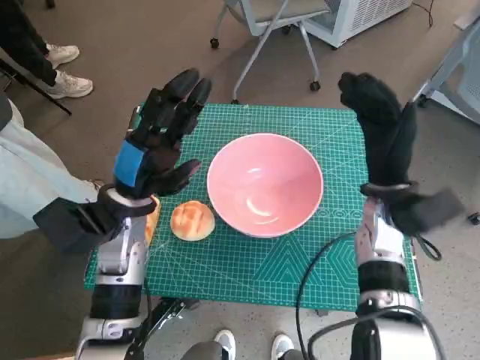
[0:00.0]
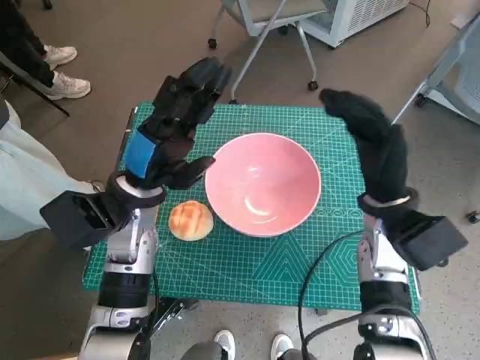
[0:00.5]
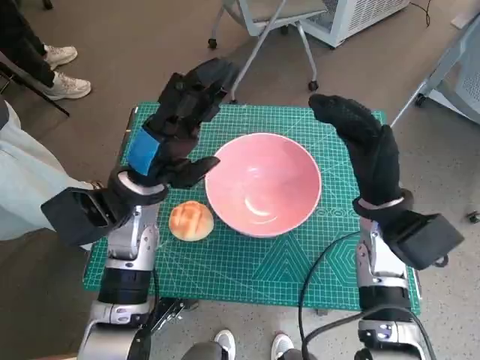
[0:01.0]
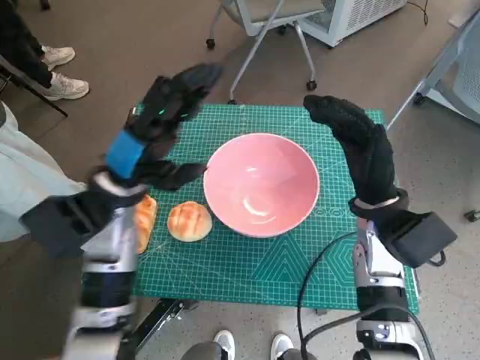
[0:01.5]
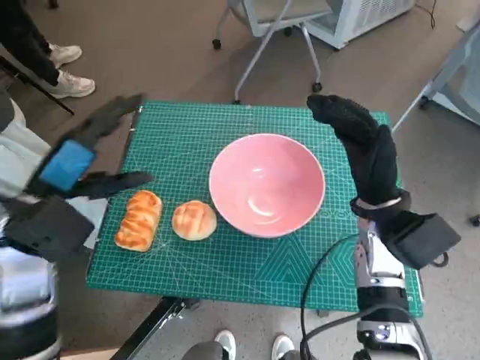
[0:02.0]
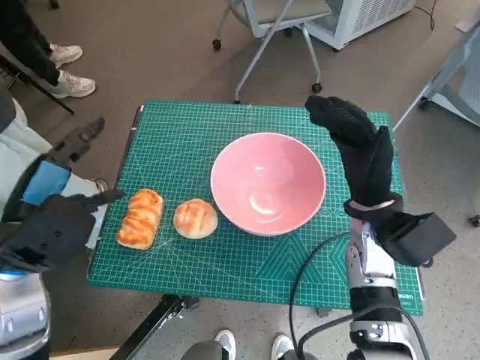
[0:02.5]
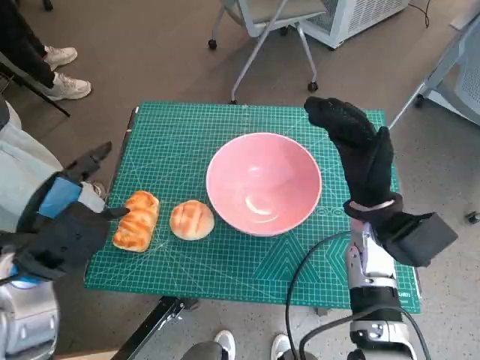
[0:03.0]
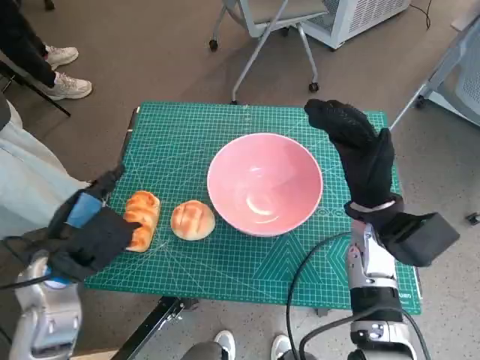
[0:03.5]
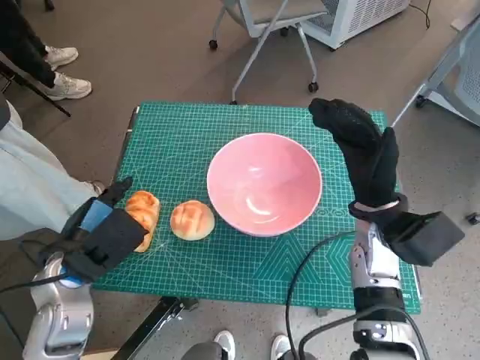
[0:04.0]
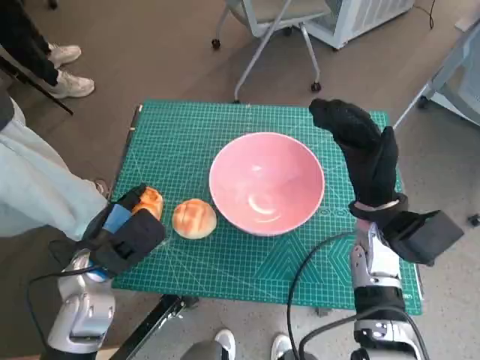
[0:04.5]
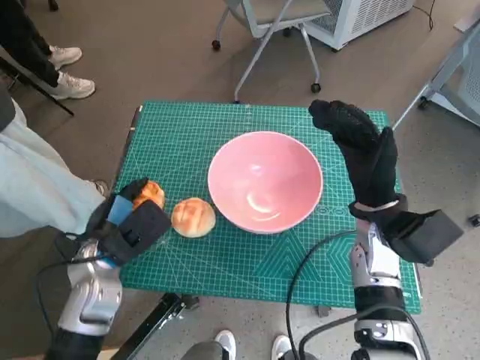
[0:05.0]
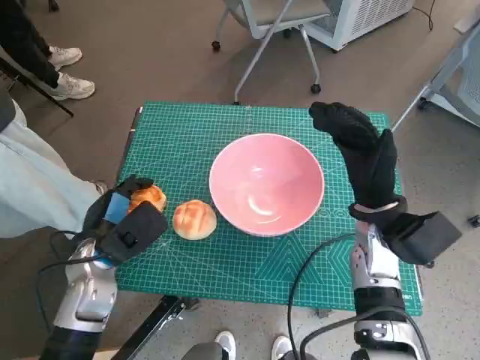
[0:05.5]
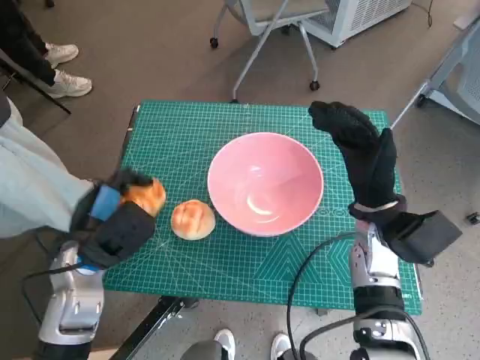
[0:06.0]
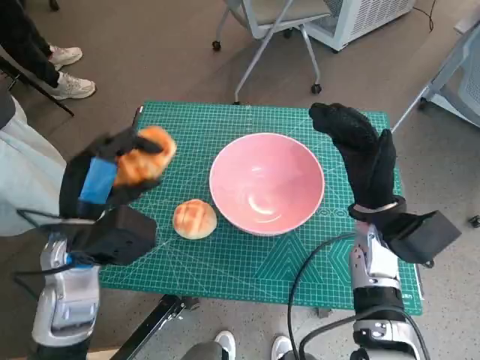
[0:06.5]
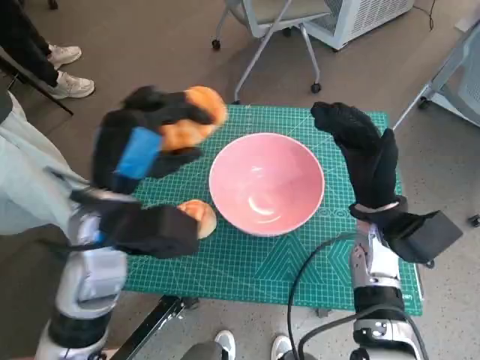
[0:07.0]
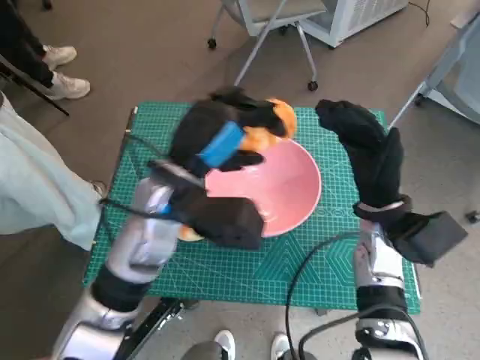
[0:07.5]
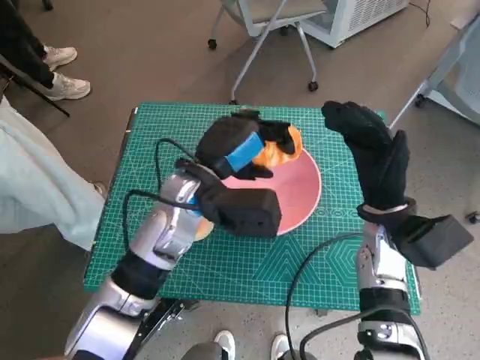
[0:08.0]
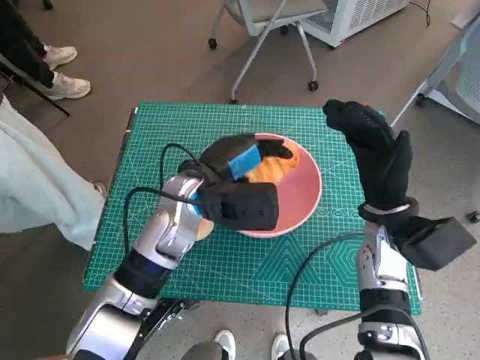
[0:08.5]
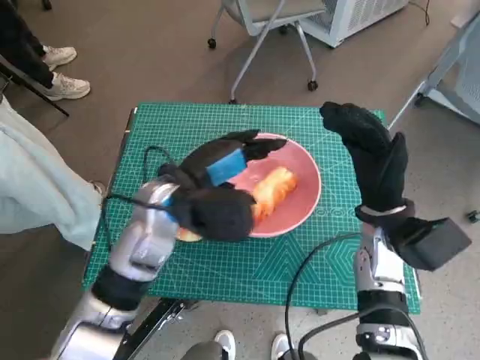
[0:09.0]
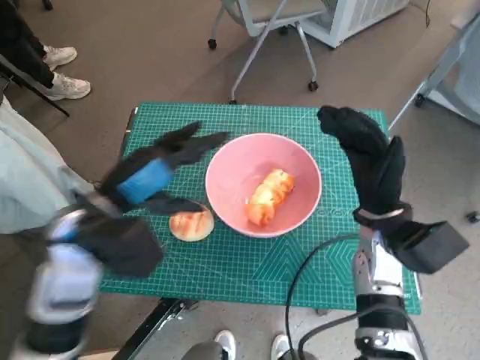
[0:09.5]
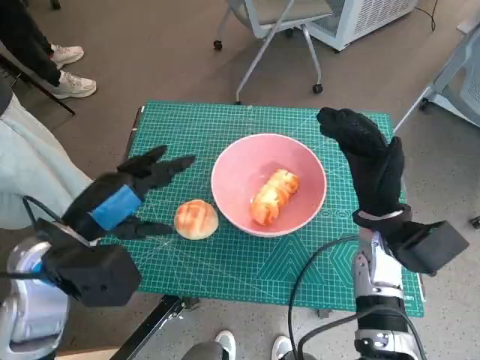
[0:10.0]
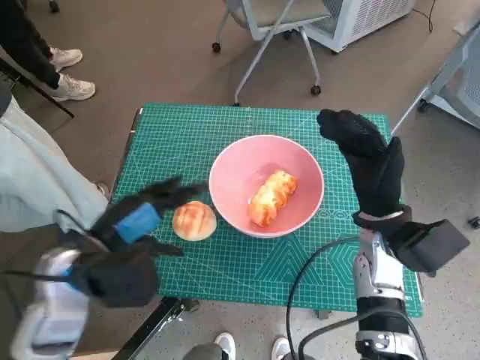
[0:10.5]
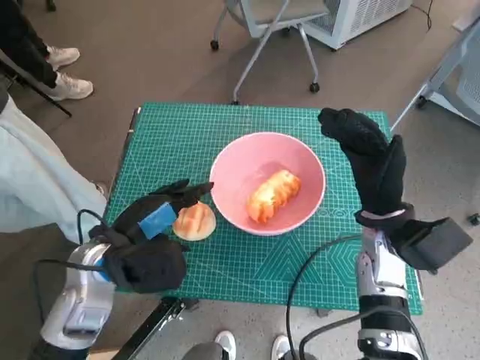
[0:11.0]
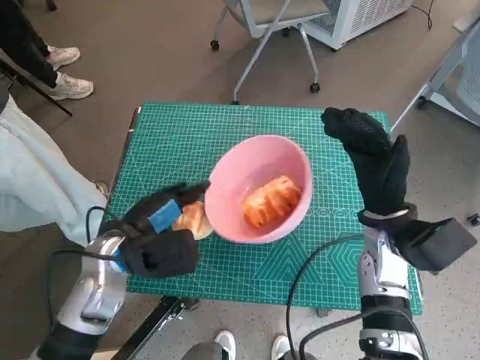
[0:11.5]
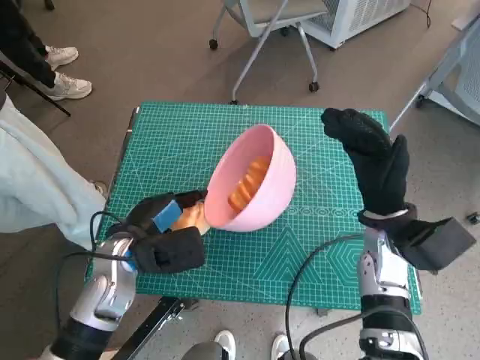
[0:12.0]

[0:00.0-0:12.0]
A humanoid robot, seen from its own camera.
Task of the whole recording: Push the bowl into the center of the table and put the bread into the bowl.
Step, 0:00.0 to 0:05.0: Grasp the long bread with left hand.
Step, 0:05.5 to 0:09.0: Place the long bread in pink bowl with left hand.
0:00.0 to 0:02.0: The left hand heads to the left and upward, covering about 10 cm.
0:02.0 to 0:04.0: The left hand moves downward, approximately 10 cm.
0:04.0 to 0:06.0: The hands make only small movements.
0:06.0 to 0:08.0: The left hand goes some 20 cm to the right, forward and upward.
0:08.0 to 0:10.0: The left hand travels to the left and backward by approximately 15 cm.
0:10.0 to 0:12.0: The left hand travels downward by some 10 cm.

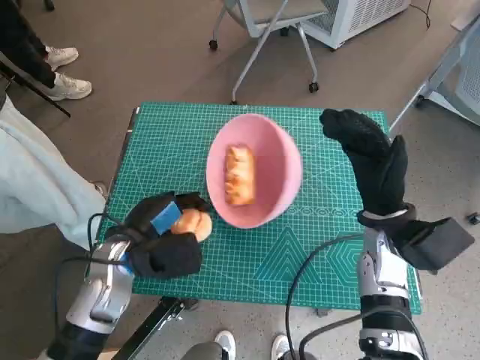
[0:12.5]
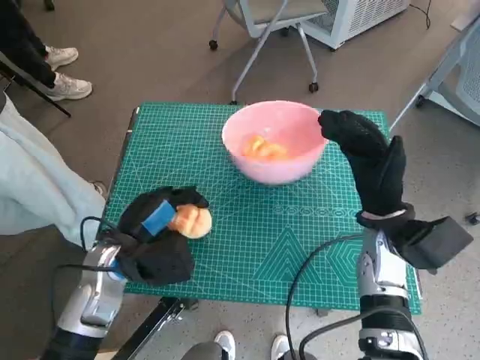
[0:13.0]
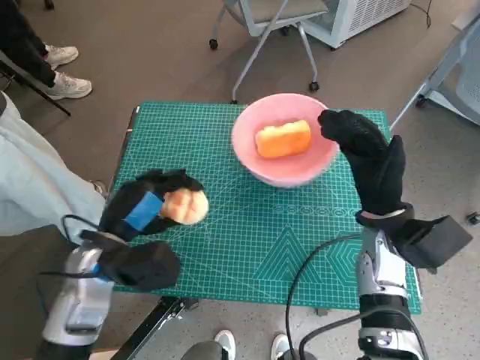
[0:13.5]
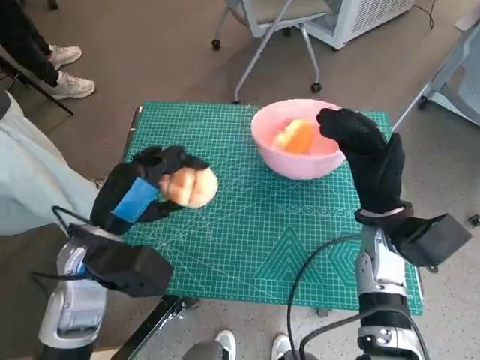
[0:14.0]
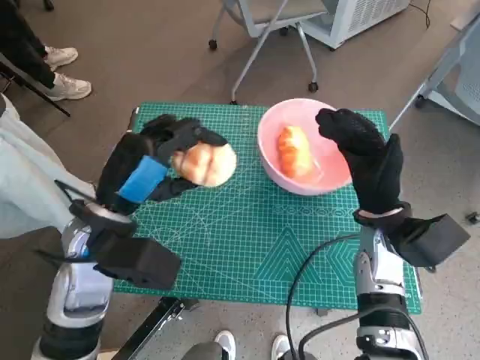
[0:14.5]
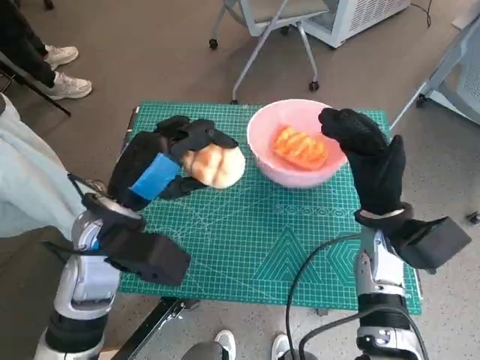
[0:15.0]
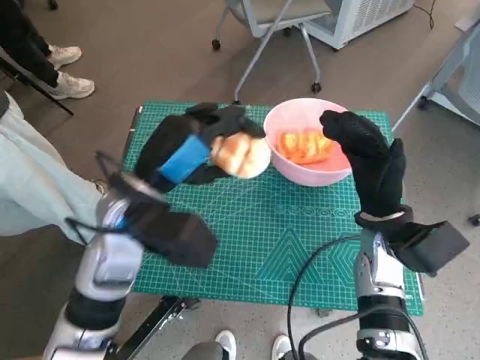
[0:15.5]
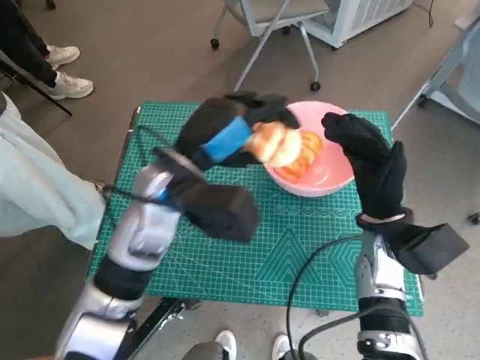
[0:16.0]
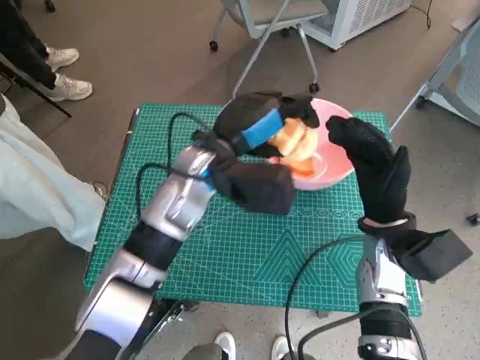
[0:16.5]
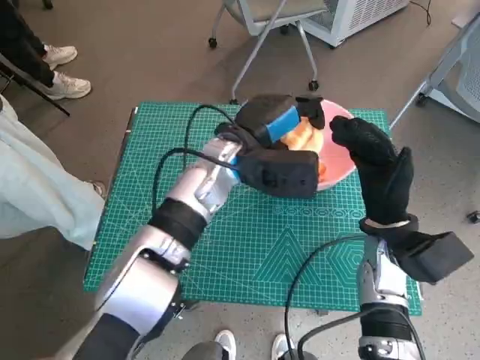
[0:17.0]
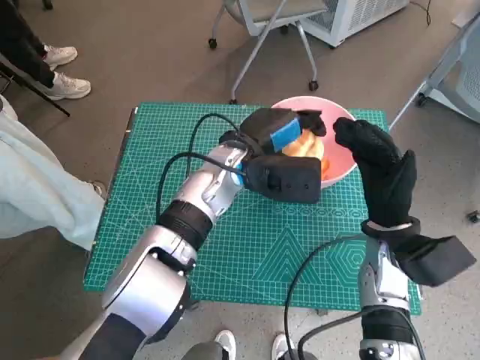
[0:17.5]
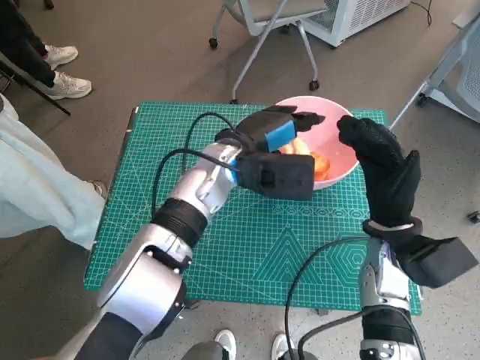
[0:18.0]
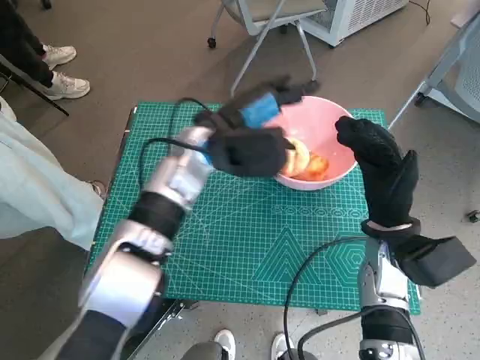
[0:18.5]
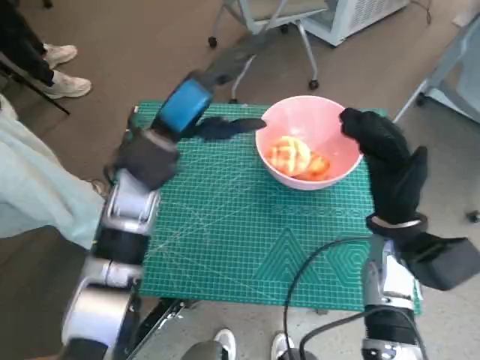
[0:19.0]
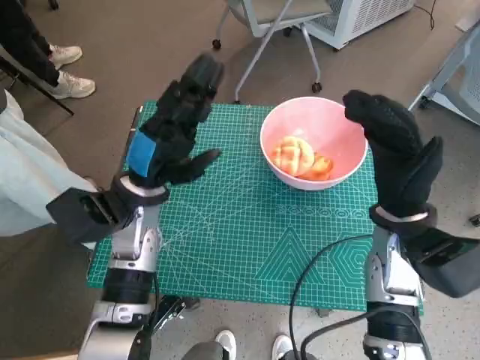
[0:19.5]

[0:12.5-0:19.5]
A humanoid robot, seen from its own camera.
Task of the whole recording: Push the bowl into the center of the table and put the bread into the bowl.
Step, 0:13.5 to 0:18.5: Place the round bread in pink bowl with left hand.
0:12.5 to 0:14.5: The left hand heads upward, covering some 10 cm.
0:14.5 to 0:16.0: The left hand shifts some 10 cm to the right and forward.
0:16.0 to 0:17.5: The left hand travels to the right and forward by some 10 cm.
0:17.5 to 0:19.5: The left hand travels to the left and backward by roughly 15 cm.
